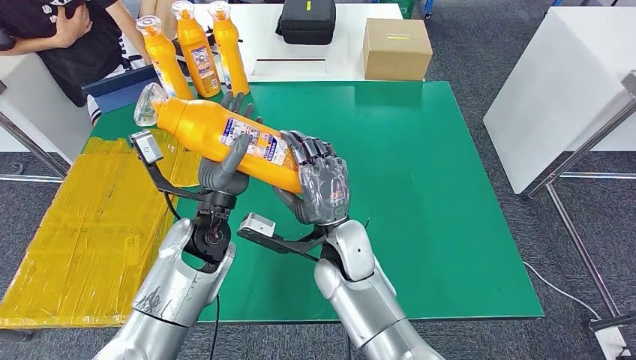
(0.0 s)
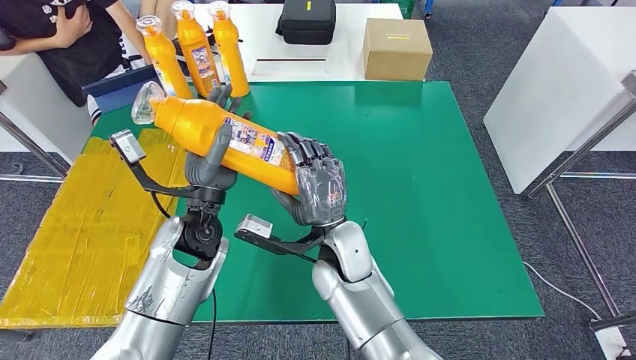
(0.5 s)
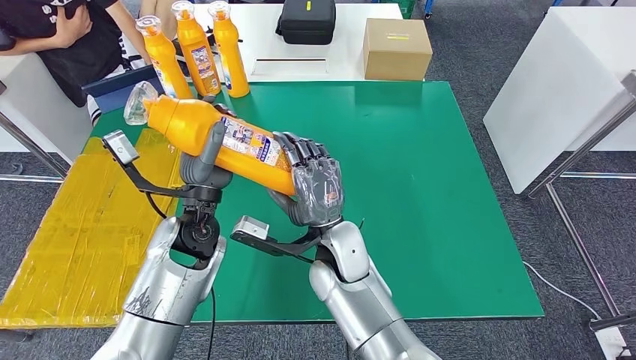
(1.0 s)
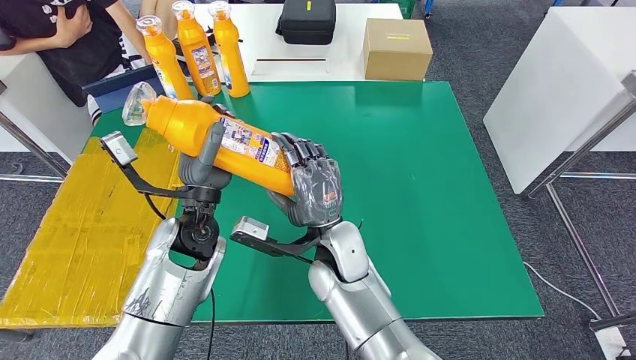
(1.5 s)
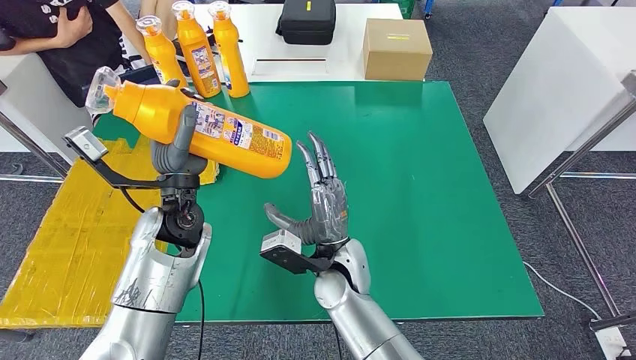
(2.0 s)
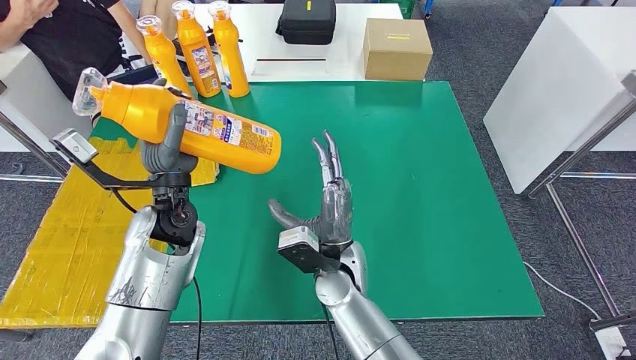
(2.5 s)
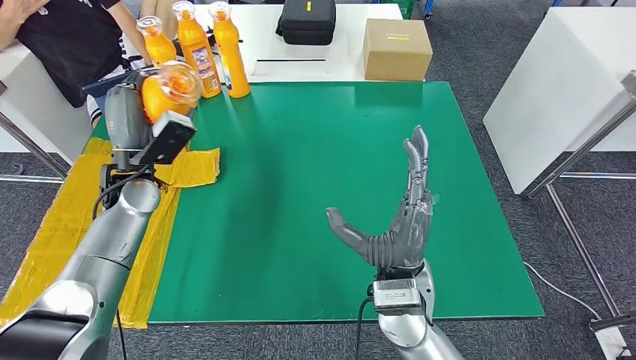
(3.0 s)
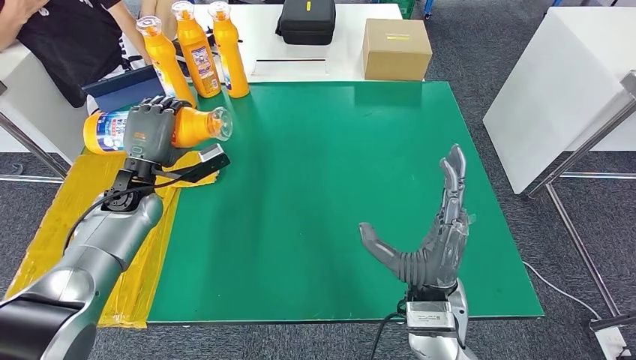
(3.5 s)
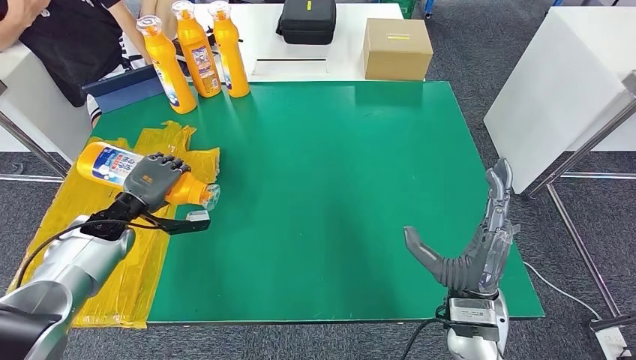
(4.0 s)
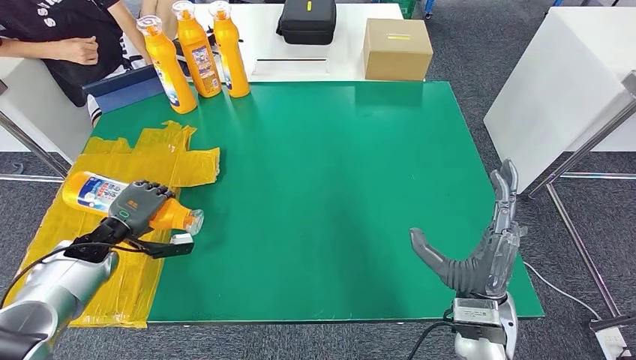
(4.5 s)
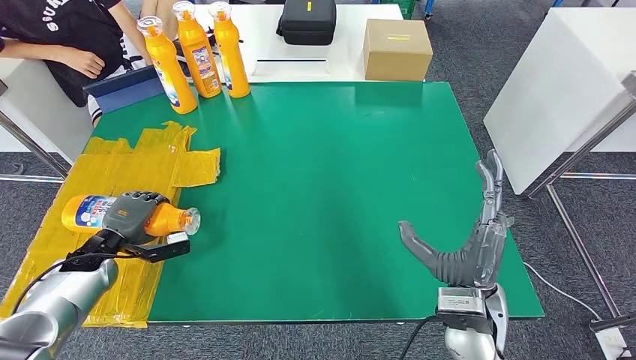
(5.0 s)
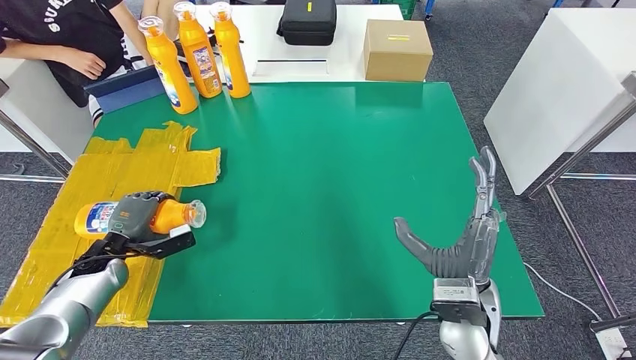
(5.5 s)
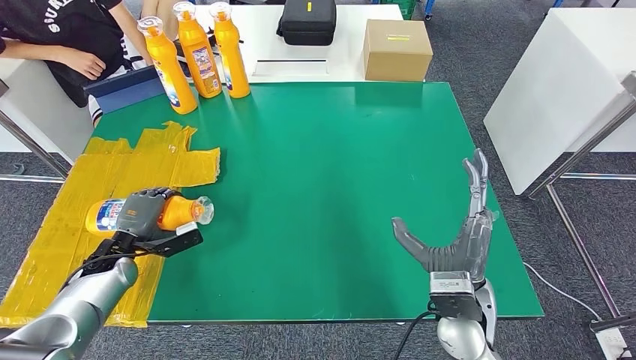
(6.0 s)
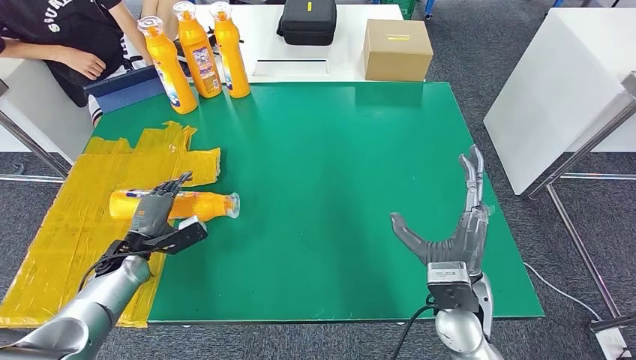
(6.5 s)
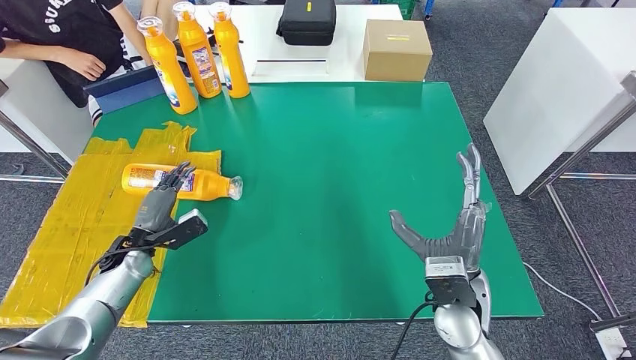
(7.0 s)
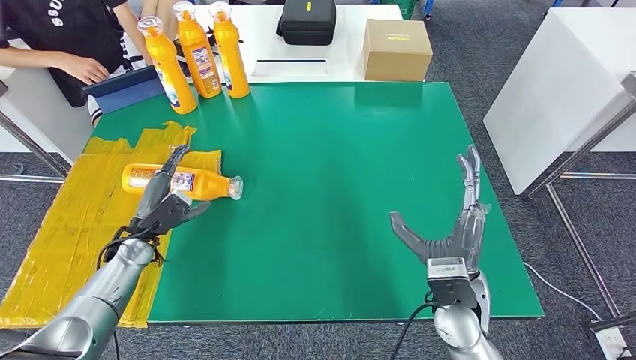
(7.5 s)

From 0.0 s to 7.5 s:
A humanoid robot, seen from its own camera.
Step, from 0.0 s to 7.5 s: Flip the bottle to face forward.
From 4.0 s to 5.5 s: The left hand is displaced downward and backward by approximately 10 cm.
From 5.5 s to 7.5 s: The left hand moves to the right, approximately 5 cm.
